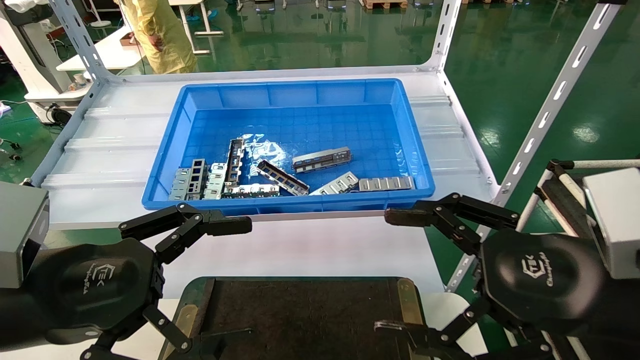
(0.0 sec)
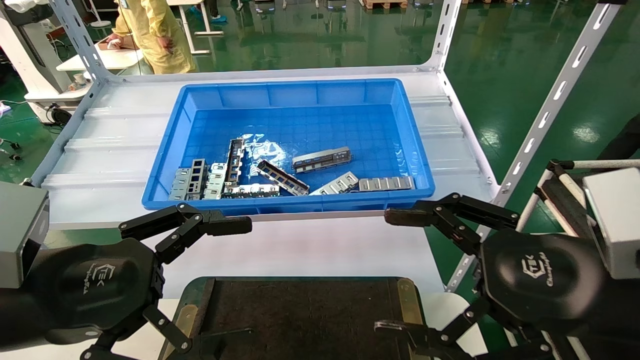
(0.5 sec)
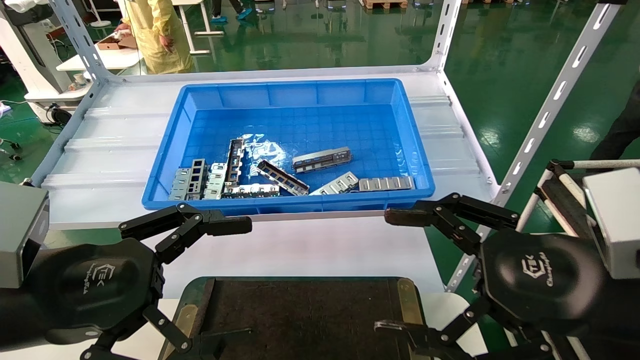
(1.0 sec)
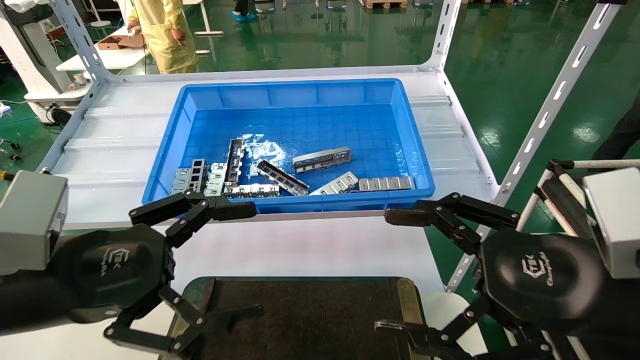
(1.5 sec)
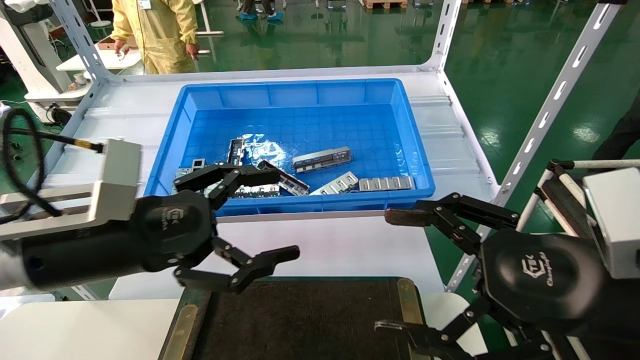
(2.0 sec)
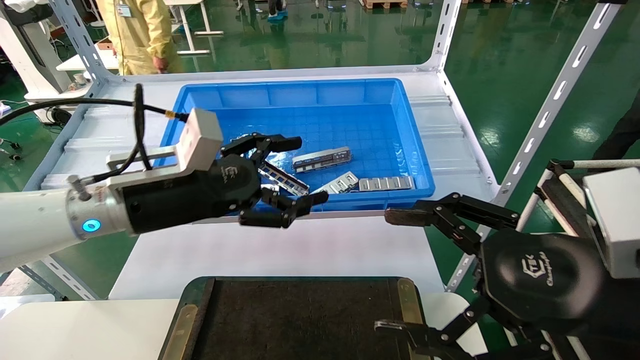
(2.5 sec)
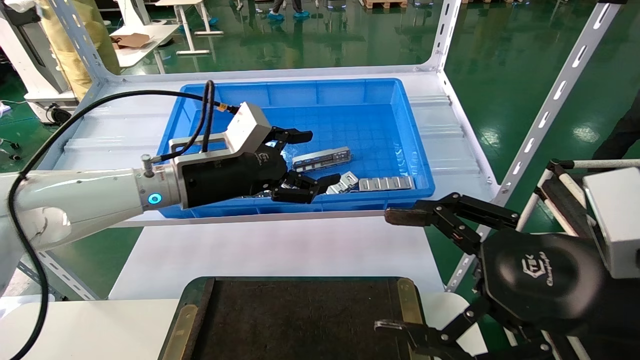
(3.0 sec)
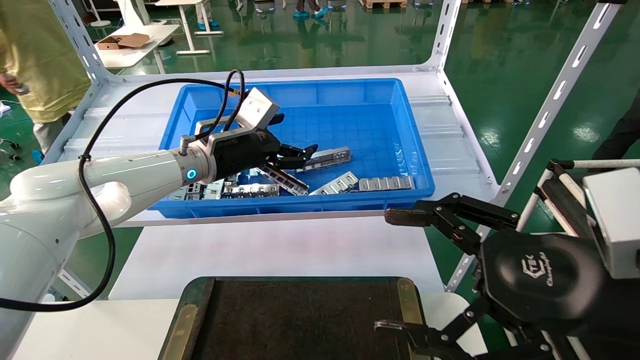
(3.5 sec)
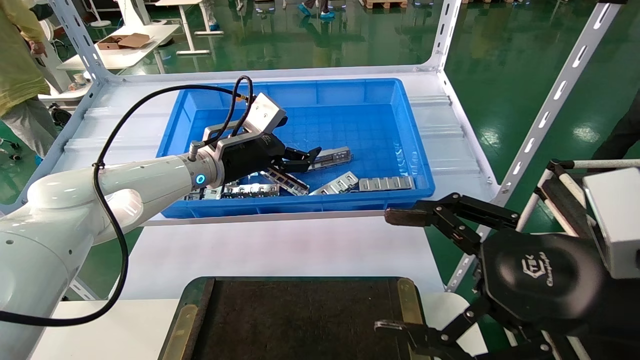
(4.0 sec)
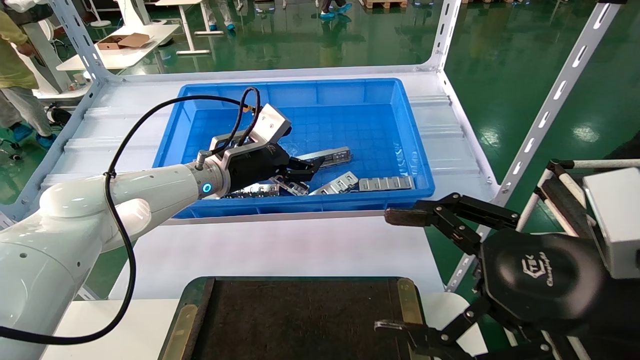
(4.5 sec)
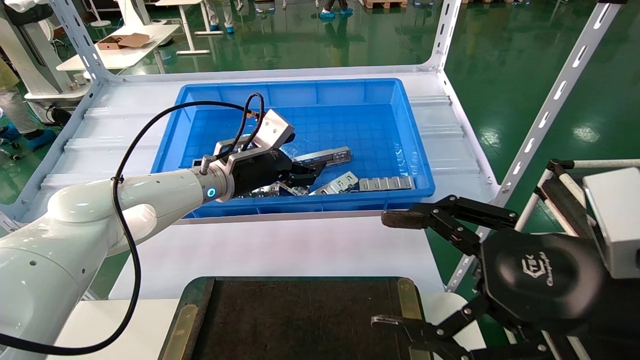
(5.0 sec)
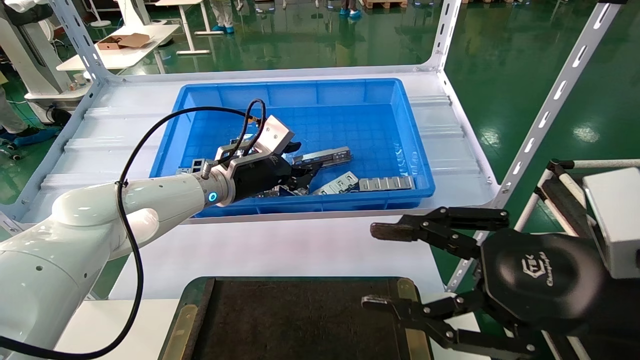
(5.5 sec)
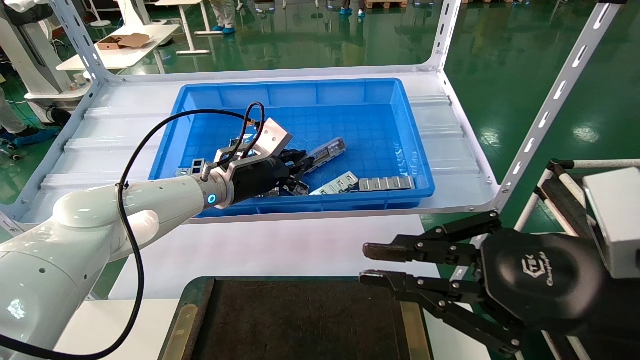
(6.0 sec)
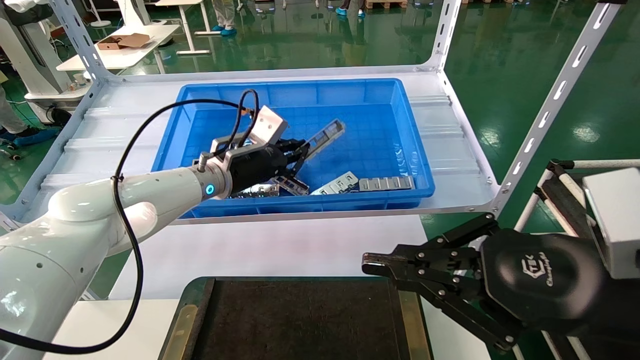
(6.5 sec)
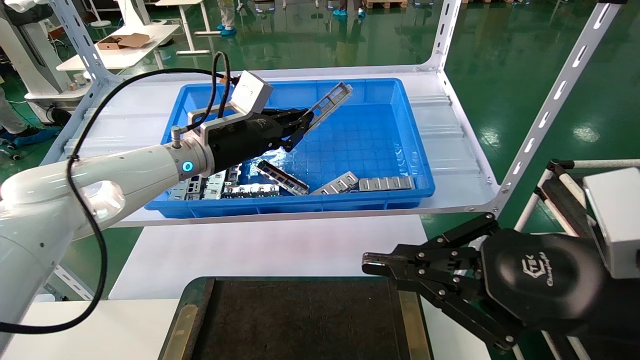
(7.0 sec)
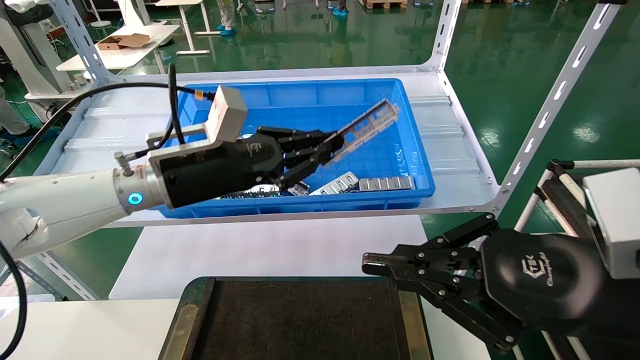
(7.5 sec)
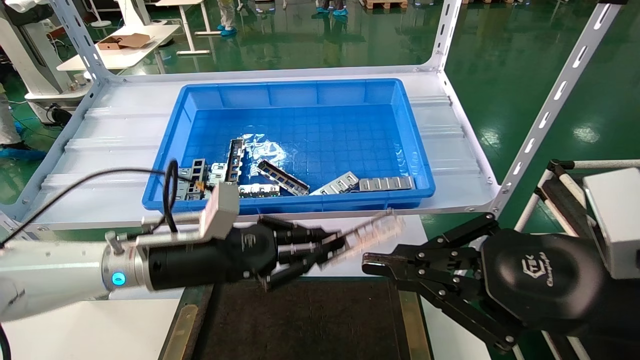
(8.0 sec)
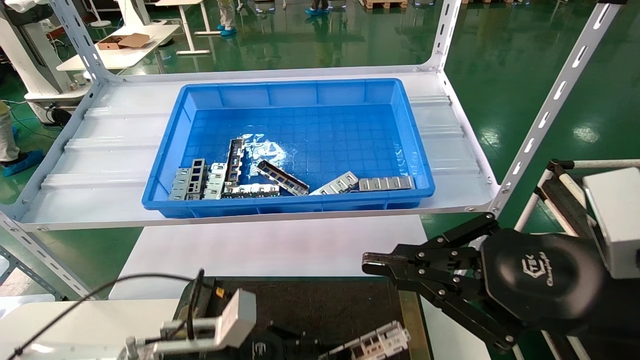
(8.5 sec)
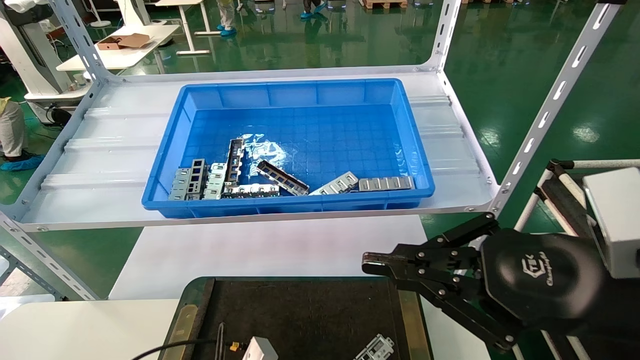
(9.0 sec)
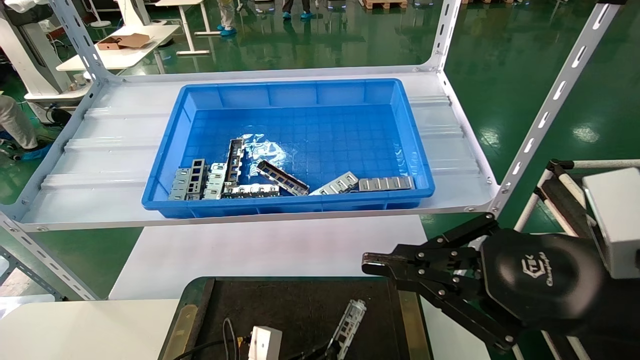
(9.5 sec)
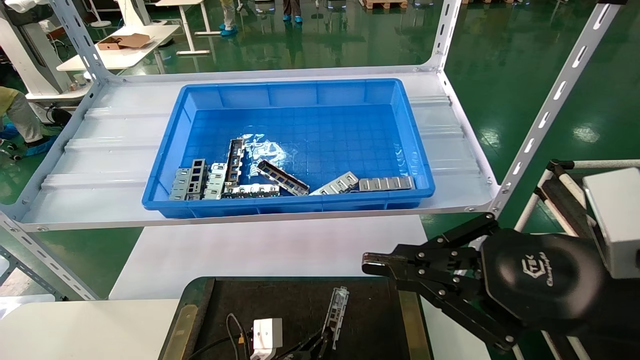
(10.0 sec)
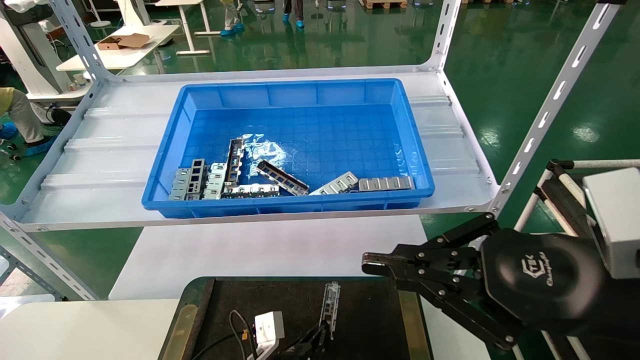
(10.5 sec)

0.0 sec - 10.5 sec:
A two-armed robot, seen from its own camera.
Task of the whole recording: Grasp the part with one hand and place it on the black container.
Step, 2.0 sec - 6.0 sec: Pick up the front USB bracket from the feeding area.
0.0 sec - 2.0 sec: The left gripper heads forward, covering about 5 cm.
2.0 sec - 4.0 sec: The left gripper travels forward by some 20 cm.
4.0 sec - 6.5 sec: The right gripper closes, while the left gripper closes its fingers.
6.5 sec - 8.5 sec: The left gripper heads downward and backward, covering approximately 25 cm.
8.5 sec - 10.5 sec: The left gripper shifts approximately 15 cm downward and to the right.

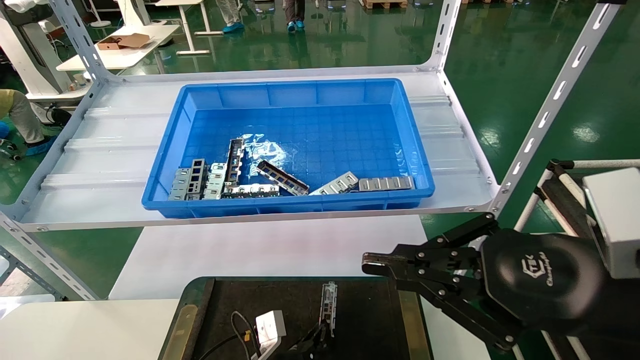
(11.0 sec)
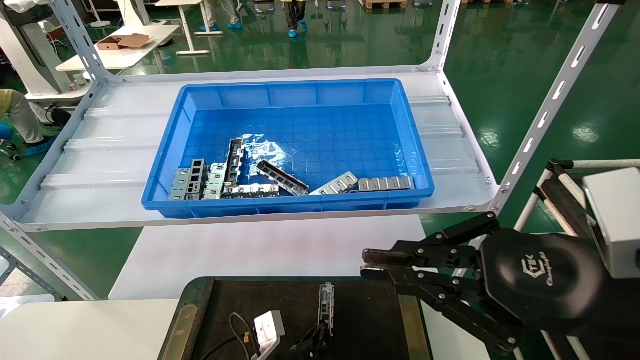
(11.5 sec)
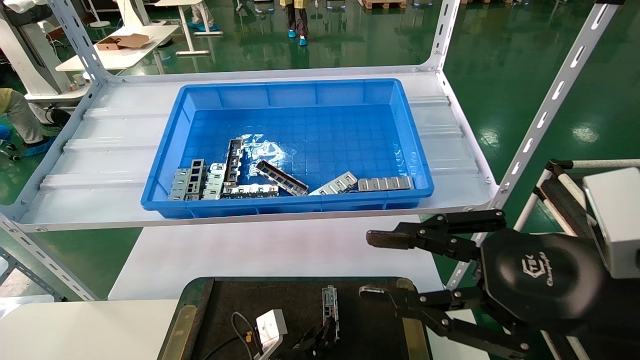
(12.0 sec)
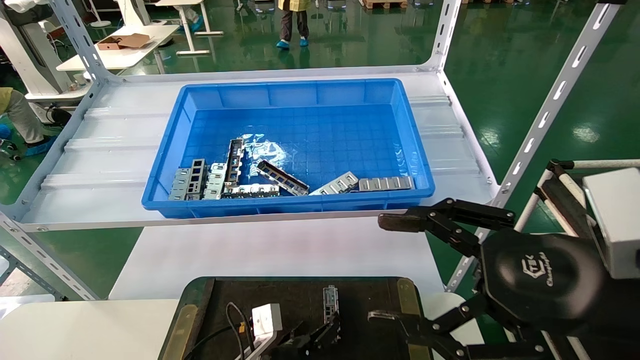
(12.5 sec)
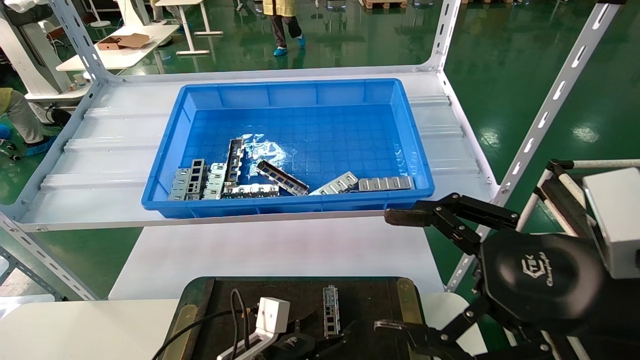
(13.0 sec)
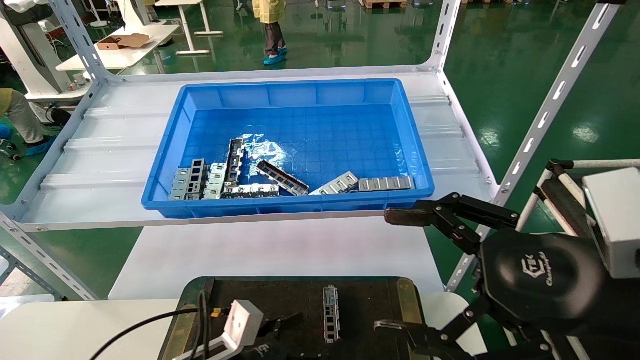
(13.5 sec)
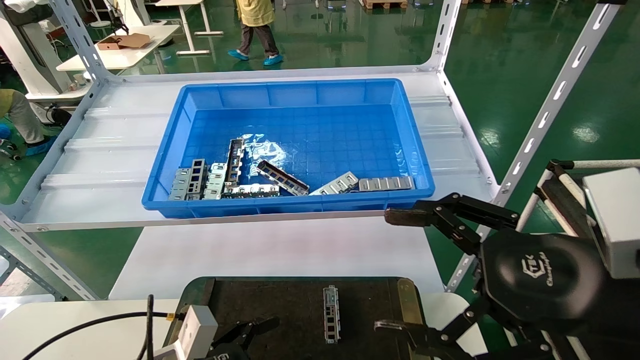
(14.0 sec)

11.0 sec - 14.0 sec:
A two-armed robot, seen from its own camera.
Task of the whole recording: Grasp the part with one hand and place it on the black container.
11.0 sec - 12.5 sec: The right gripper opens up. The left gripper opens its fingers.
12.5 sec - 14.0 sec: The left gripper travels to the left, backward and upward by some 15 cm, and opens.
